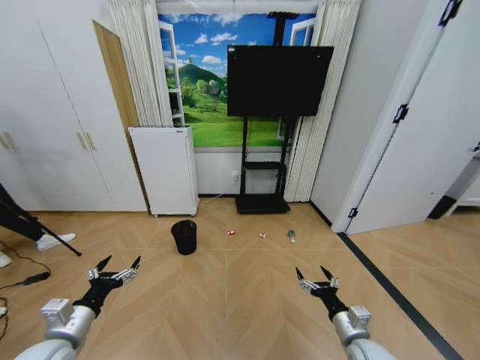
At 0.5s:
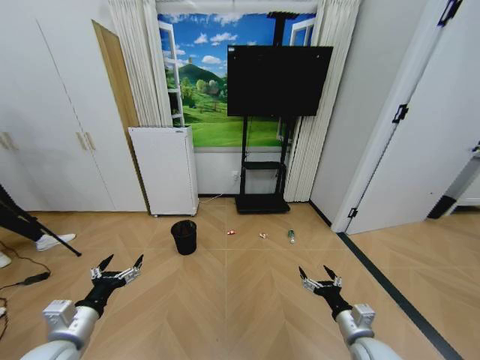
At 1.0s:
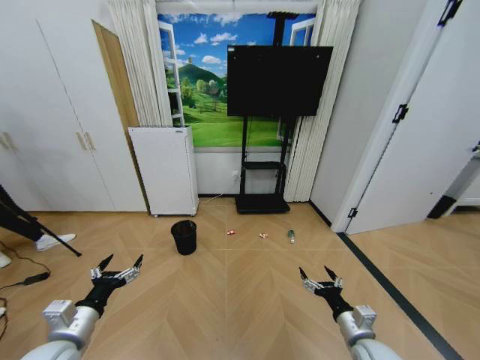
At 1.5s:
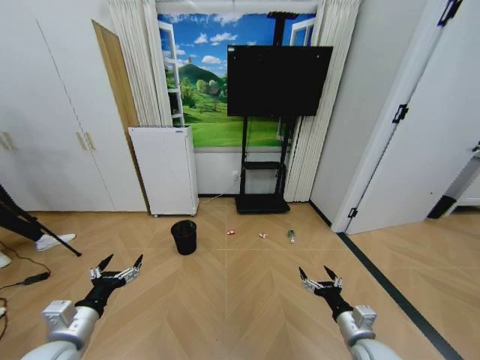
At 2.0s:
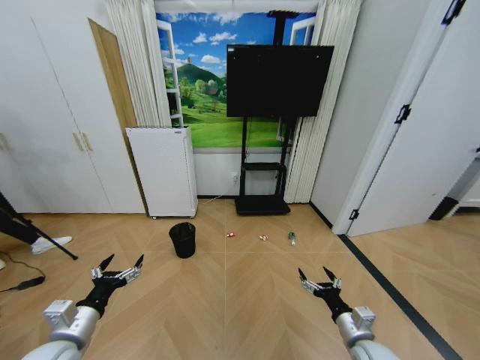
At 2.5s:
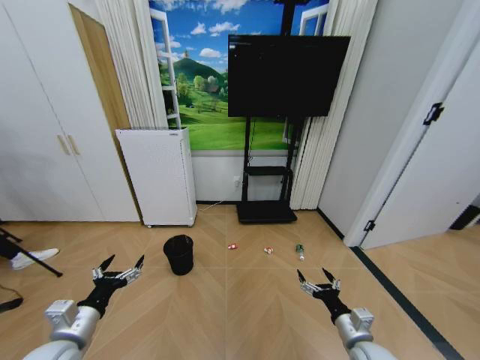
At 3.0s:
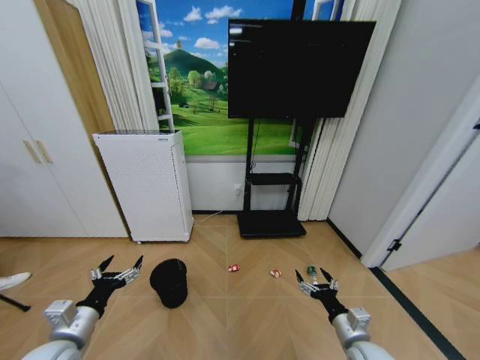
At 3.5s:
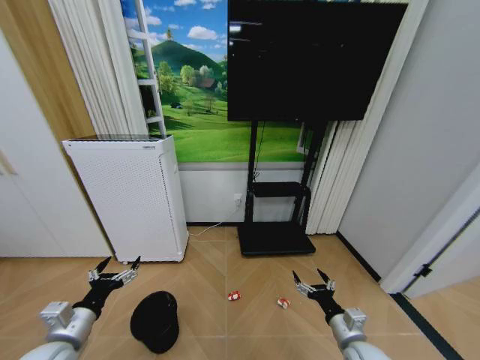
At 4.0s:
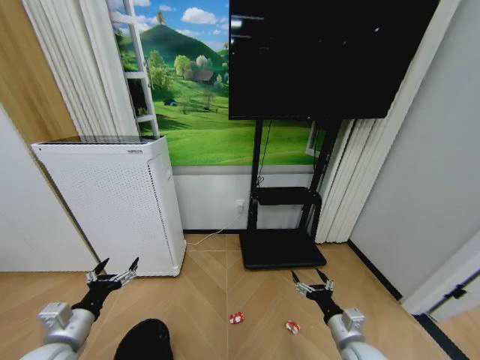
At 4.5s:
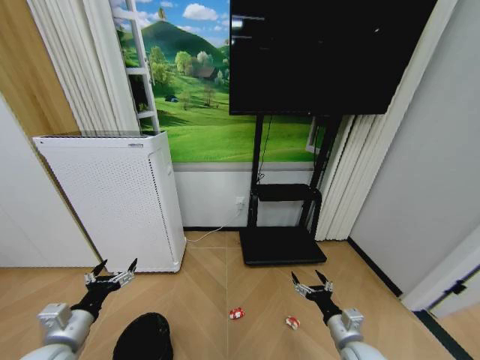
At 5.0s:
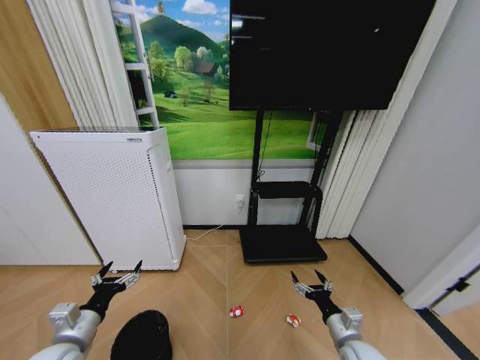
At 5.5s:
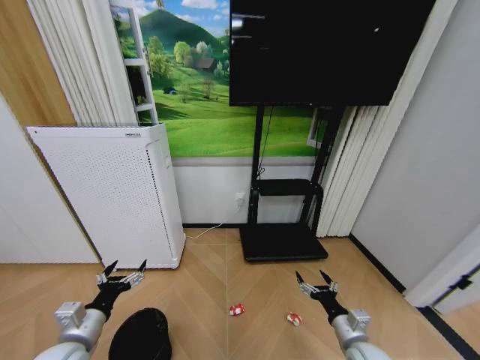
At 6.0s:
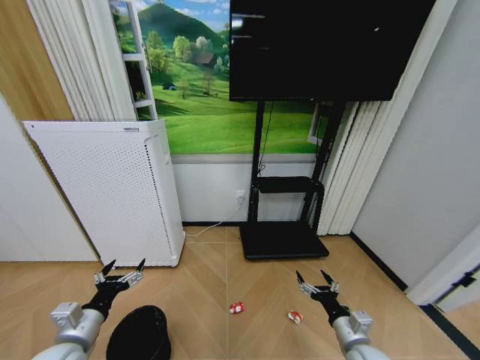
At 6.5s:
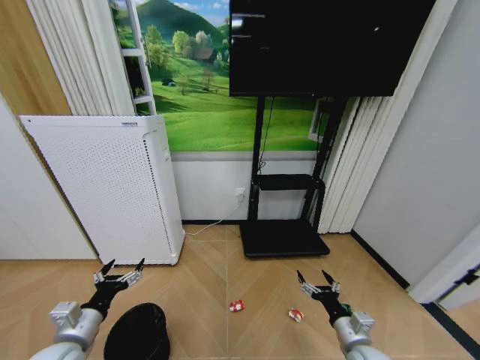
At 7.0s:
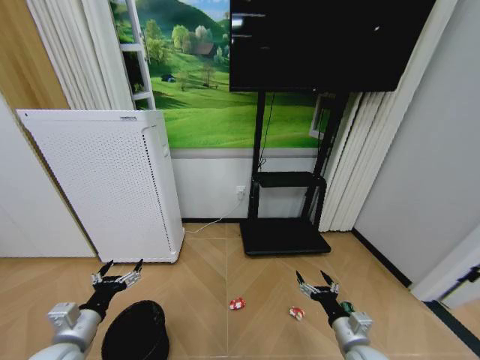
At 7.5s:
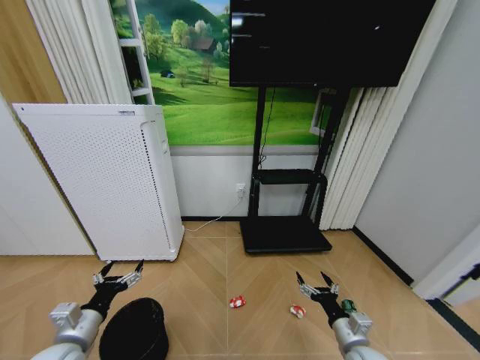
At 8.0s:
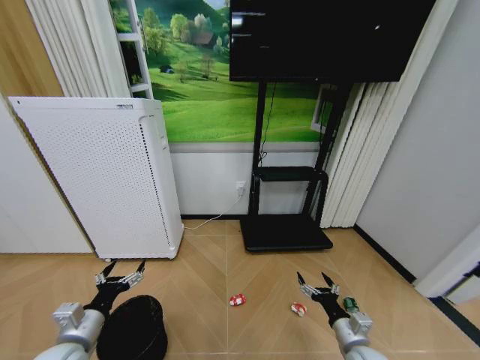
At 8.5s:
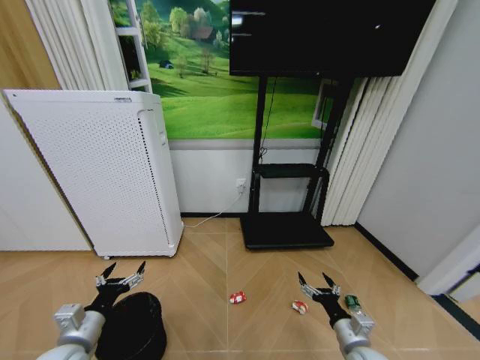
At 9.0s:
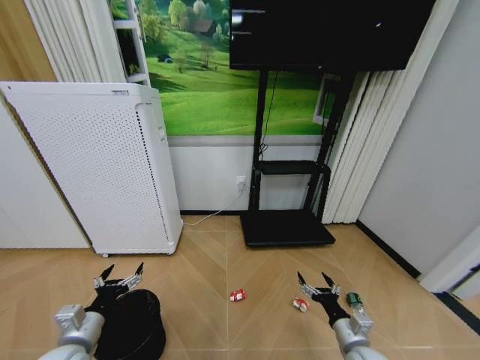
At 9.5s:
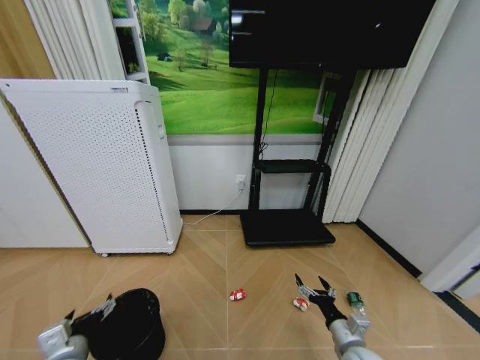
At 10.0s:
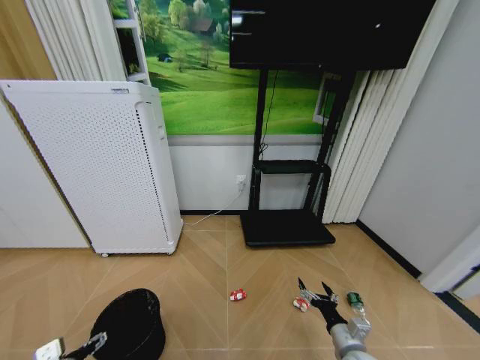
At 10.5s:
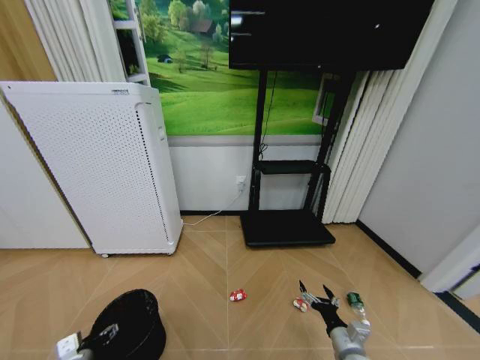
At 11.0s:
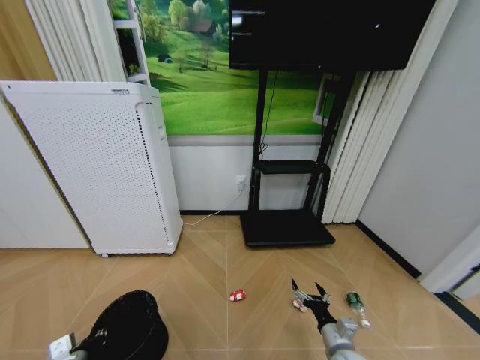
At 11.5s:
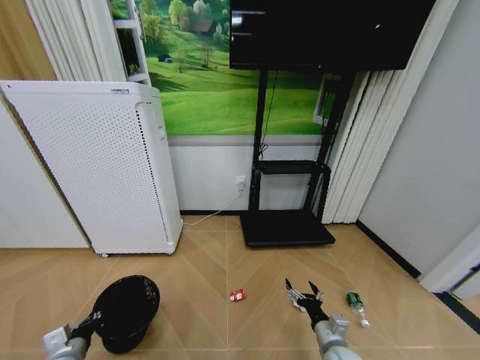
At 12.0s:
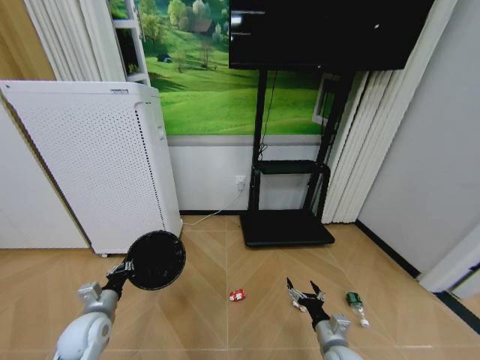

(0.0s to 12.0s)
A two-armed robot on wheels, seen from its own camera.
Task of the whole recording: Pick up the trash bin and place the garbage on the floor into it.
6.0s - 8.0s: Both grippers stay about where they are.
8.0s - 10.0s: The left gripper travels downward by approximately 5 cm.
10.0s - 12.0s: The left gripper moves forward, roughly 10 cm, and closes.

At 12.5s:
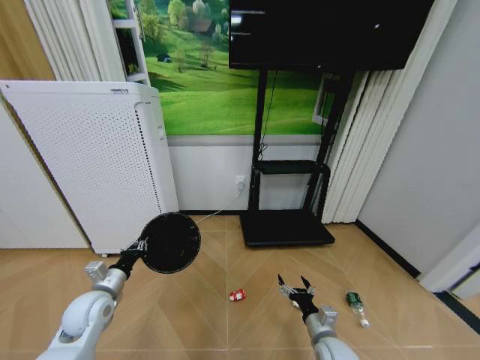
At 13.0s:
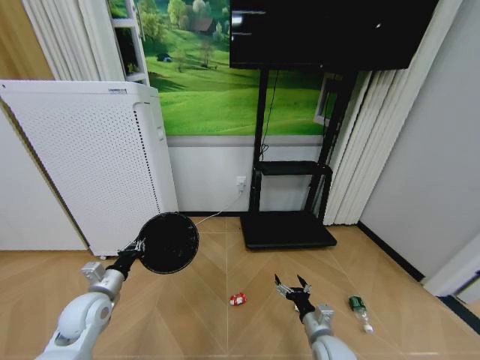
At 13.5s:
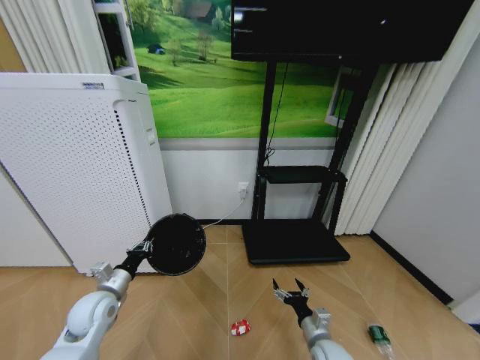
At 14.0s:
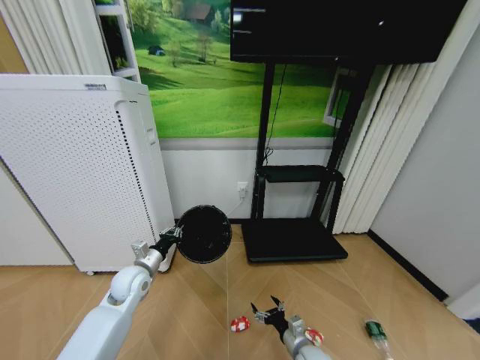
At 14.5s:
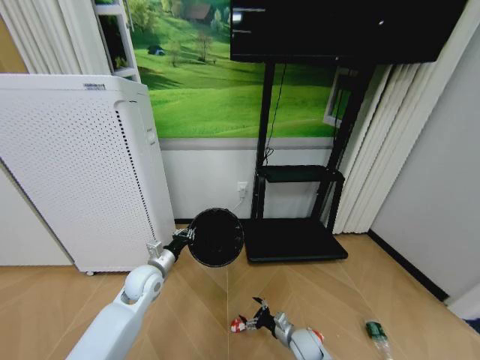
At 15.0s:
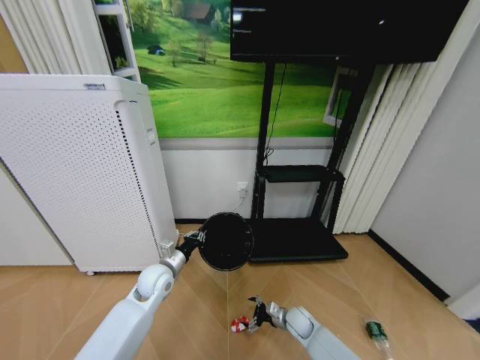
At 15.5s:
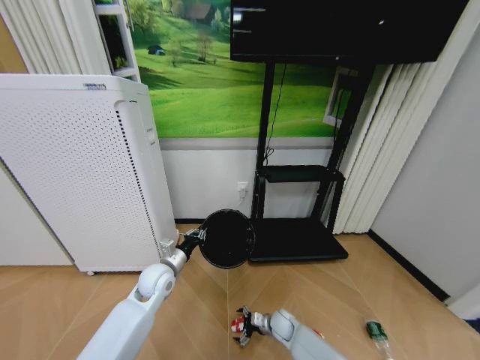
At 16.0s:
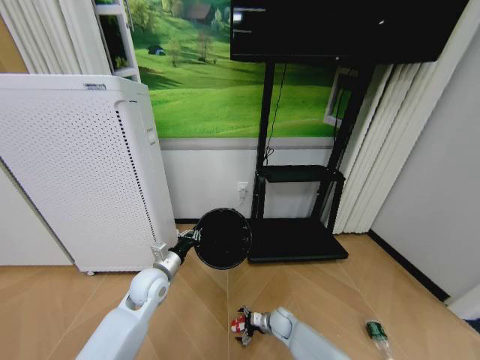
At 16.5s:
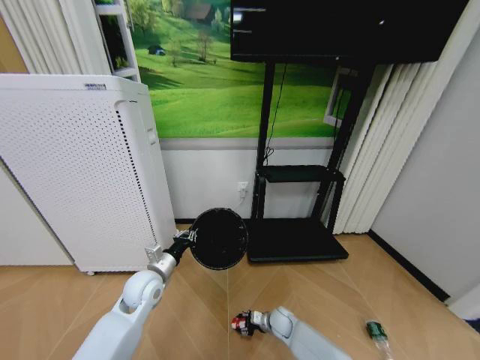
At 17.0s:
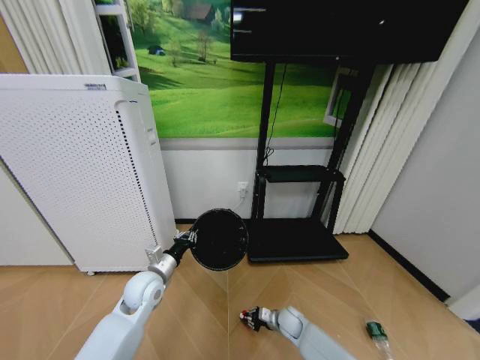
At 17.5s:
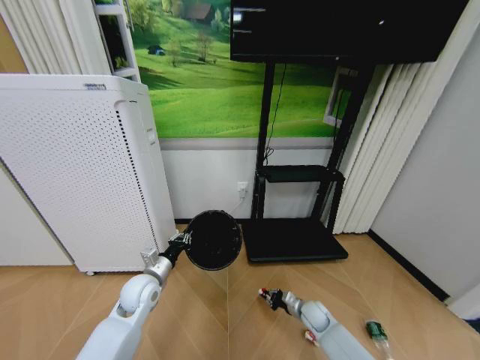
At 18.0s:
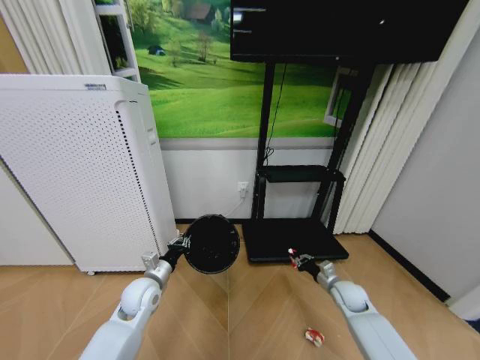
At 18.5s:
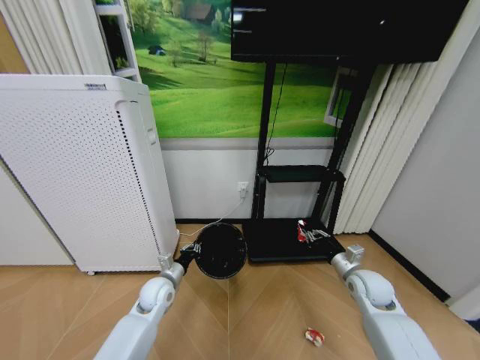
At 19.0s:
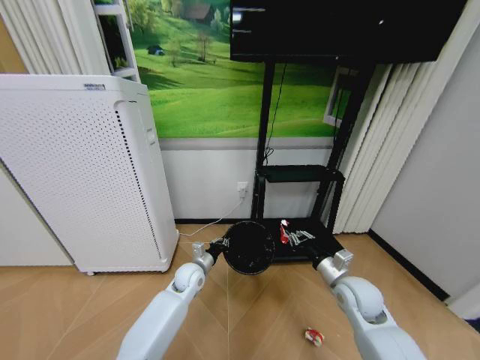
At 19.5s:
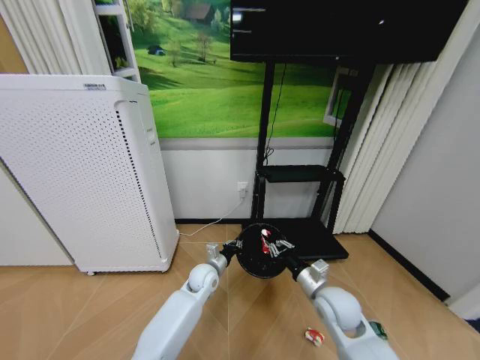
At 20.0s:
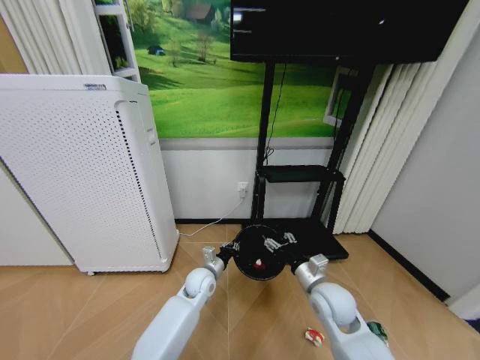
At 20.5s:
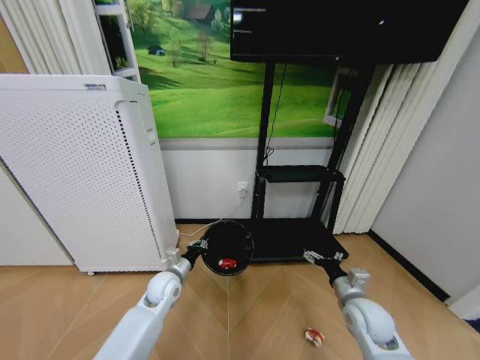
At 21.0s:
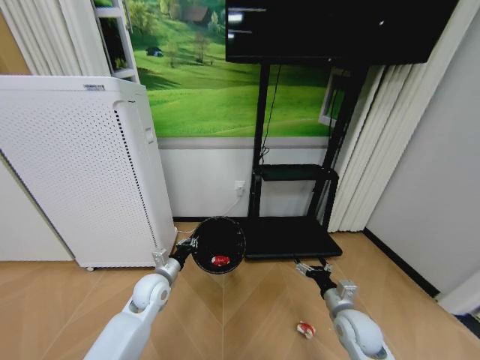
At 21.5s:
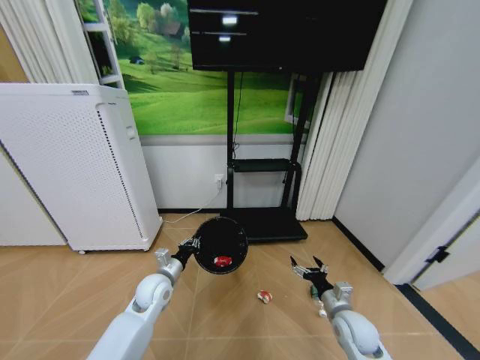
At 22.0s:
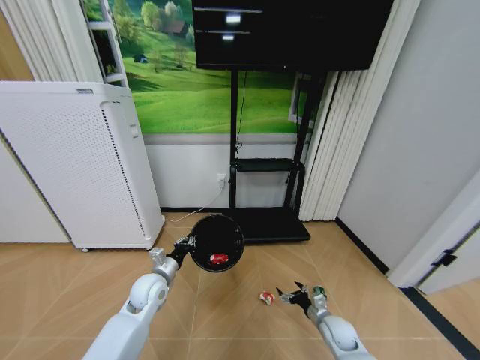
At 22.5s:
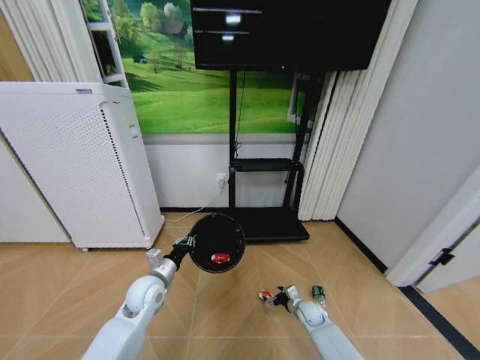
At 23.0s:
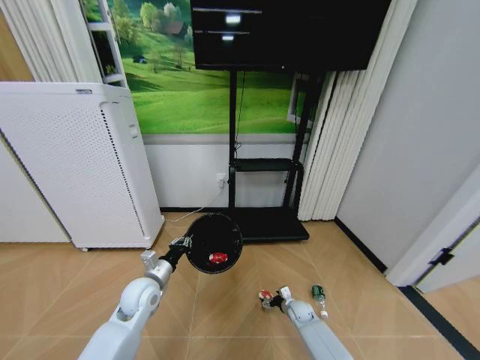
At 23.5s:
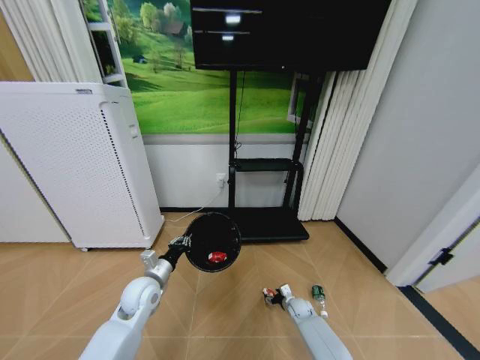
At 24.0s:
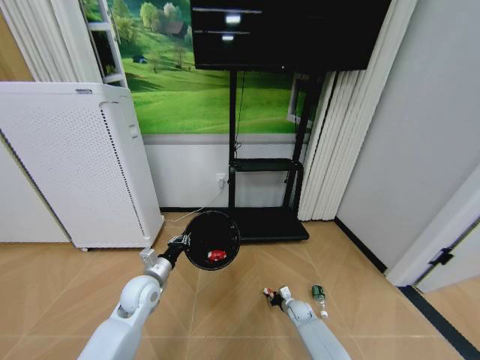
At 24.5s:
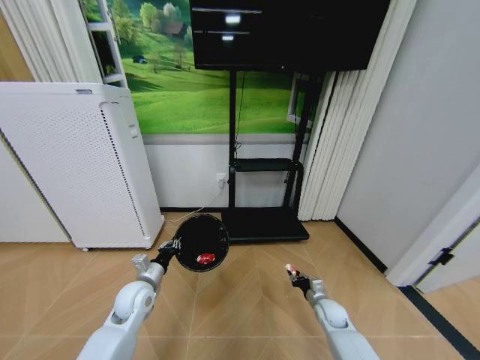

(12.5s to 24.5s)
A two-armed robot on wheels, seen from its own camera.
Task of the whole recording: Pick up the trash bin and place the garbage on the floor into it.
12.5s - 14.5s: The right gripper heads downward and forward, covering approximately 15 cm. The left gripper shifts roughly 15 cm to the right and forward.
14.5s - 16.5s: The right gripper shifts some 10 cm forward, and closes.
16.5s - 18.5s: The right gripper is displaced upward and to the right by roughly 35 cm, and closes. Meanwhile the left gripper moves downward, roughly 5 cm.
18.5s - 20.5s: The right gripper goes roughly 10 cm backward and to the left, and opens its fingers, while the left gripper moves roughly 15 cm to the right and comes back.
20.5s - 22.5s: The right gripper travels downward and forward by about 25 cm, while the left gripper changes place by approximately 5 cm.
22.5s - 24.5s: The right gripper shifts by some 5 cm, and closes.

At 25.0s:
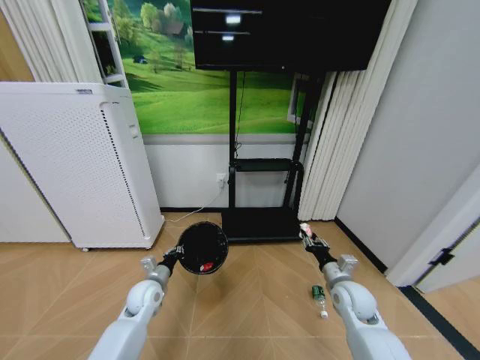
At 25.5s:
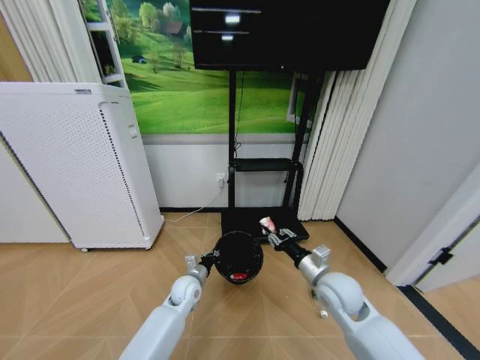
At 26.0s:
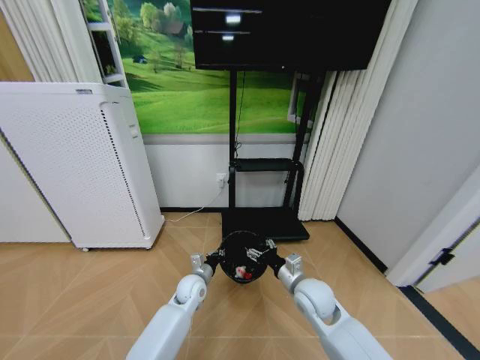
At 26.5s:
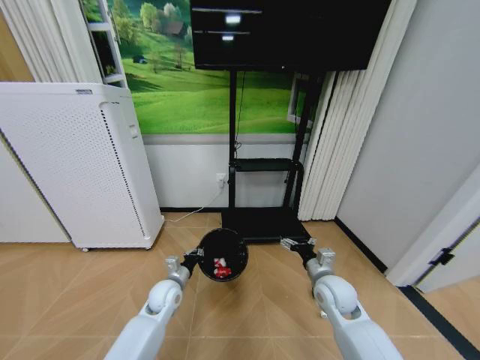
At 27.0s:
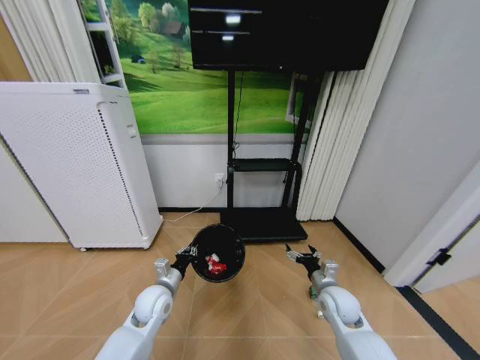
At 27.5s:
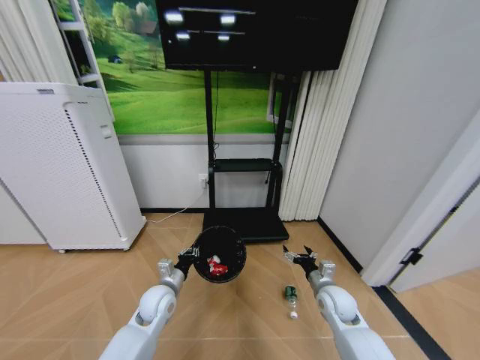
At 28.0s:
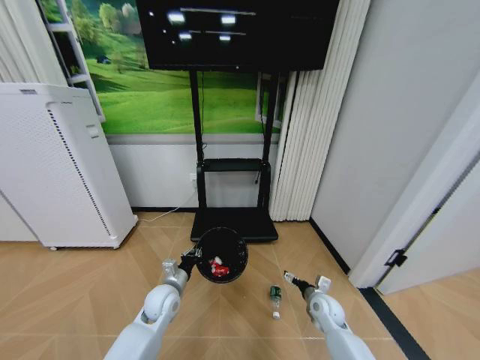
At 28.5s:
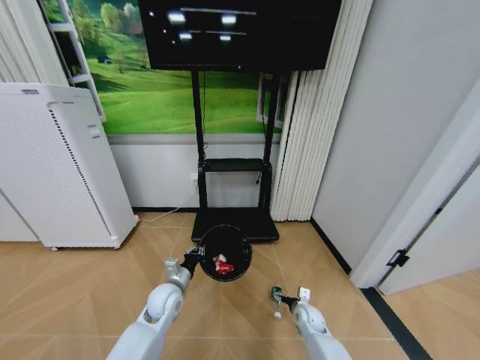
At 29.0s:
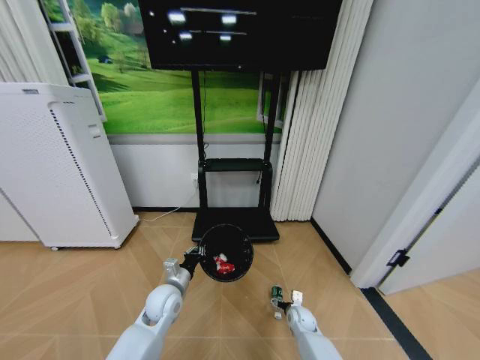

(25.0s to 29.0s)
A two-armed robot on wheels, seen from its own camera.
Task of the whole recording: Pick up the trash bin and place the garbage on the floor into it.
25.0s - 27.0s: The right gripper moves roughly 15 cm to the left and comes back, and opens its fingers. Meanwhile the left gripper travels to the right and back again, approximately 15 cm each way.
27.0s - 29.0s: The right gripper goes some 20 cm downward.
